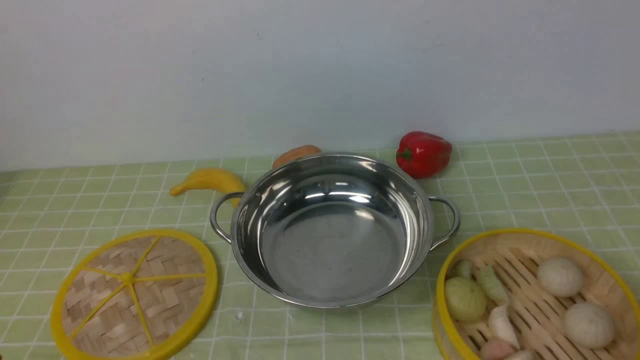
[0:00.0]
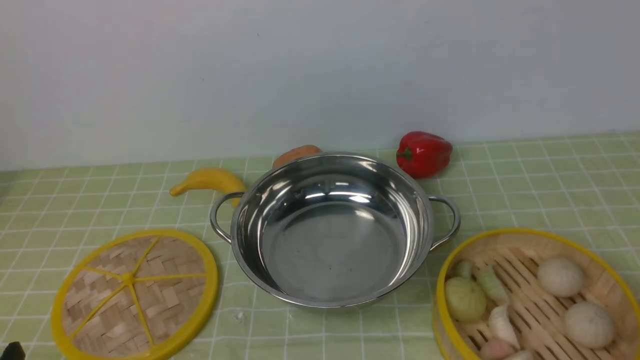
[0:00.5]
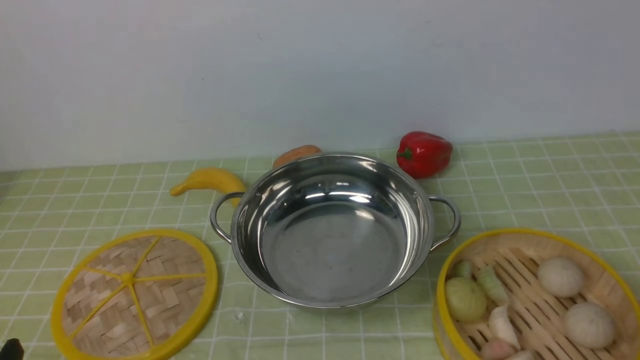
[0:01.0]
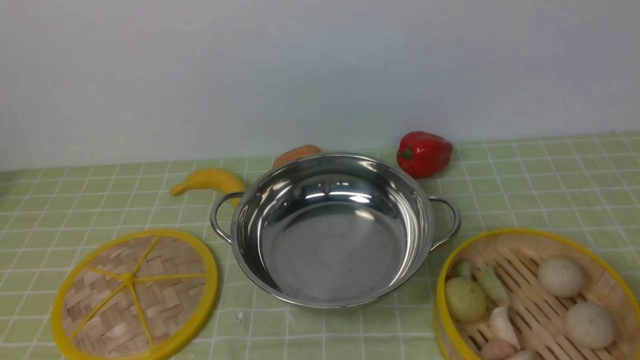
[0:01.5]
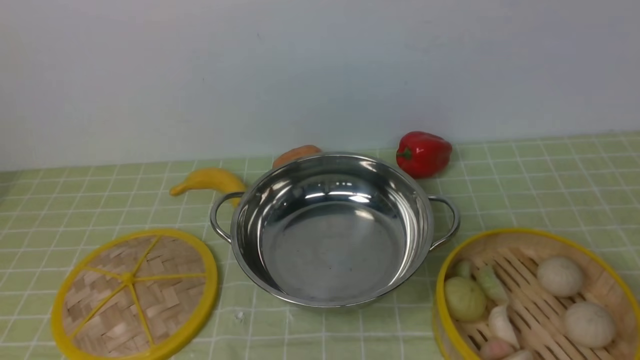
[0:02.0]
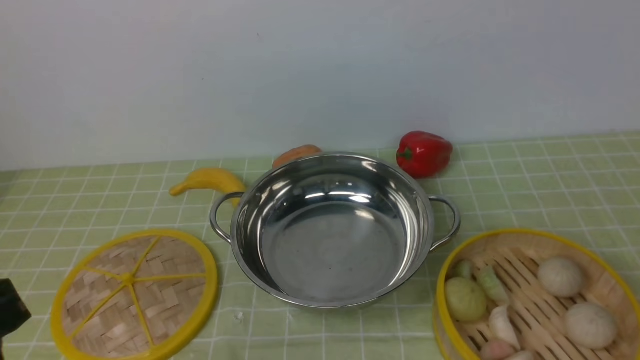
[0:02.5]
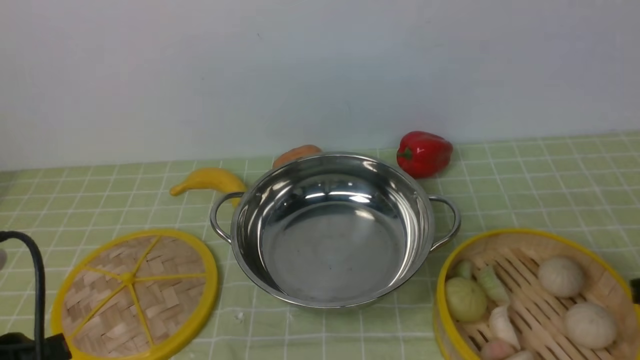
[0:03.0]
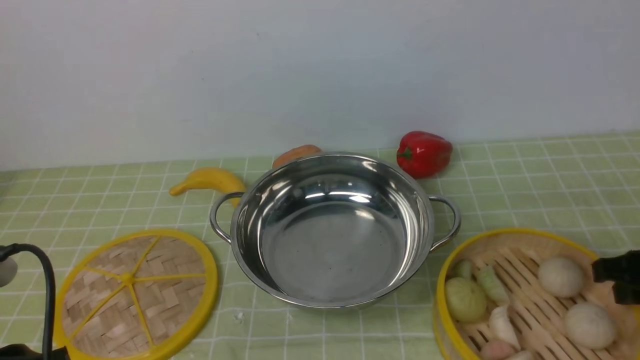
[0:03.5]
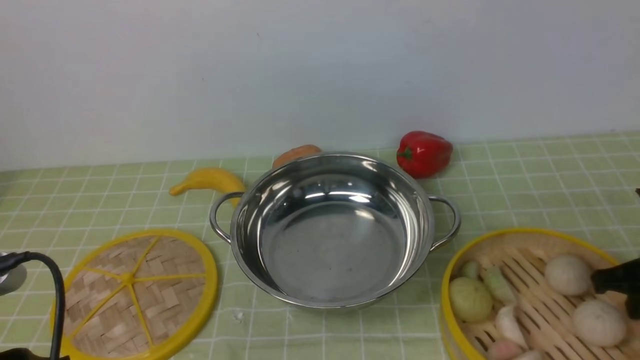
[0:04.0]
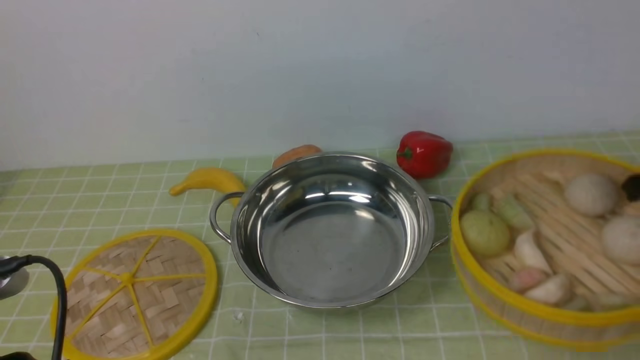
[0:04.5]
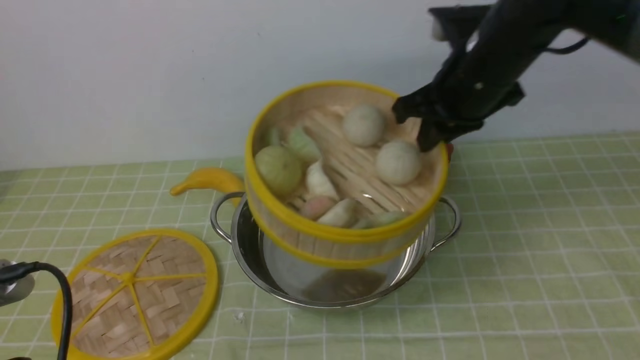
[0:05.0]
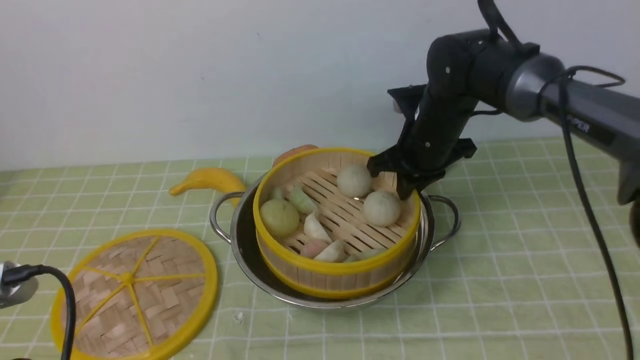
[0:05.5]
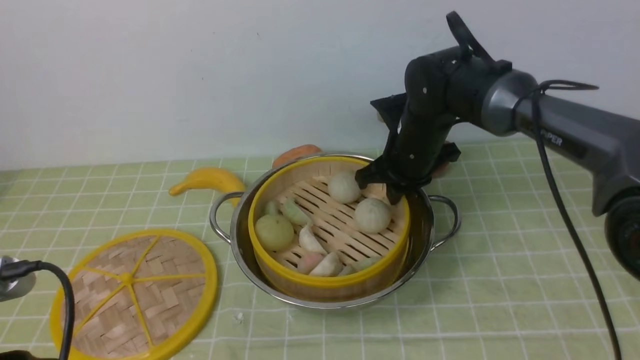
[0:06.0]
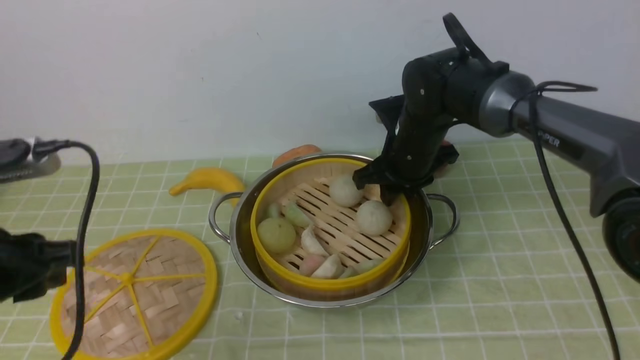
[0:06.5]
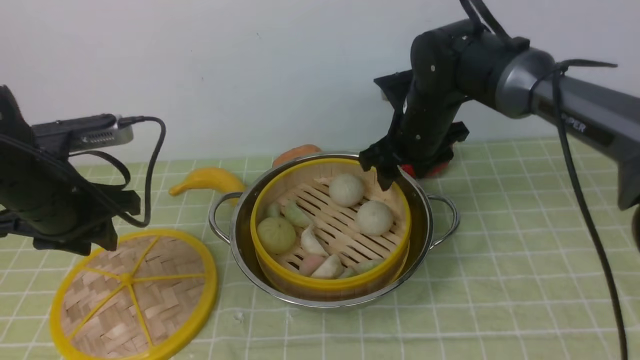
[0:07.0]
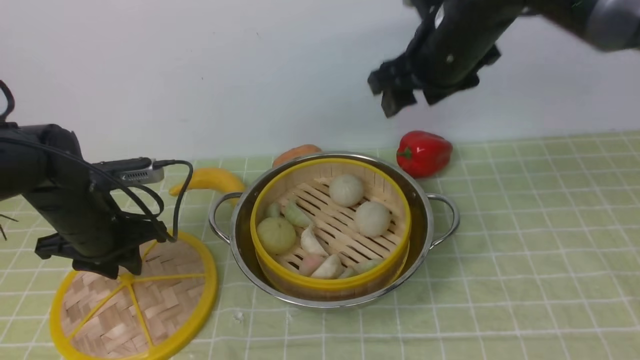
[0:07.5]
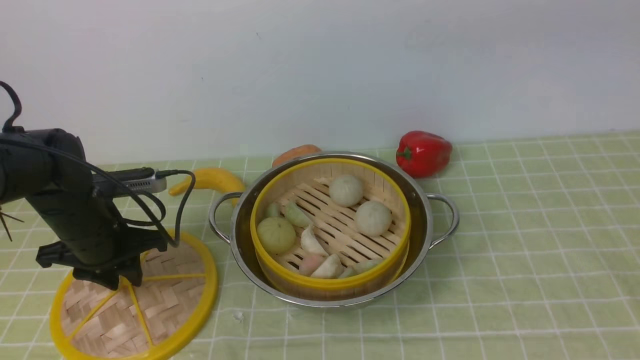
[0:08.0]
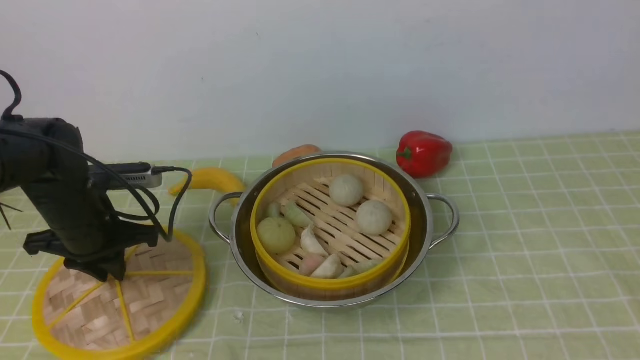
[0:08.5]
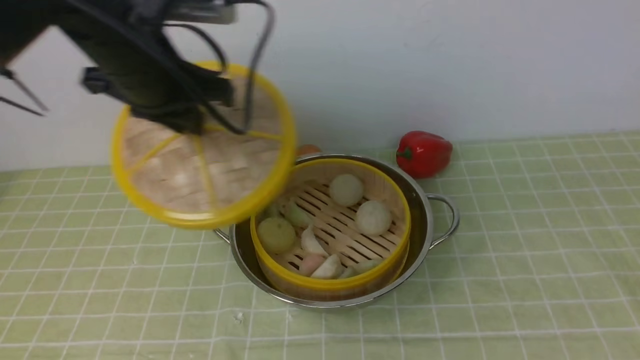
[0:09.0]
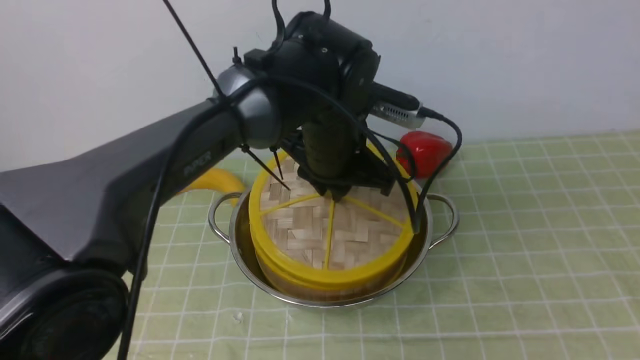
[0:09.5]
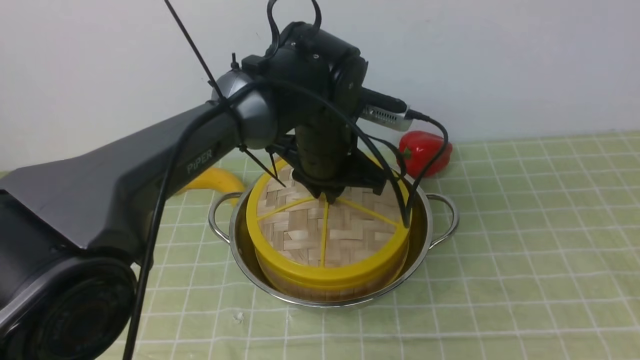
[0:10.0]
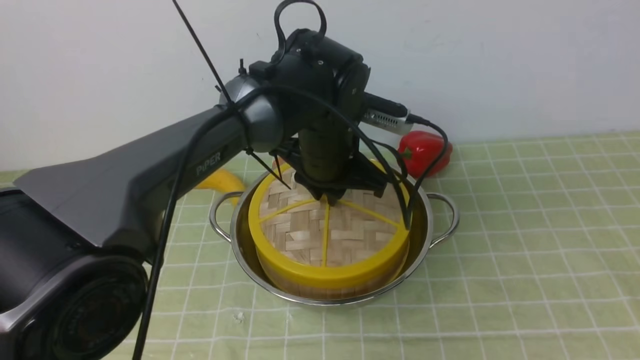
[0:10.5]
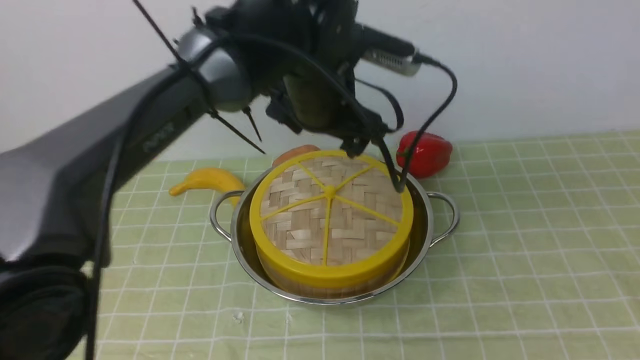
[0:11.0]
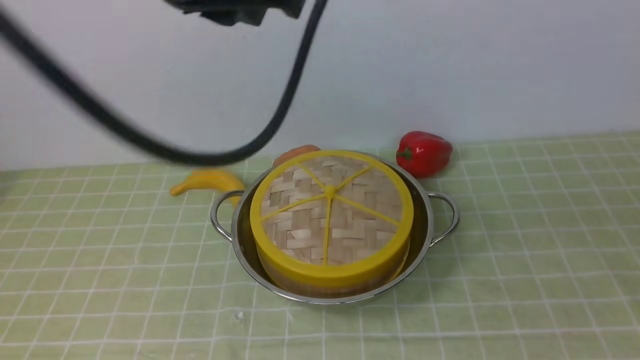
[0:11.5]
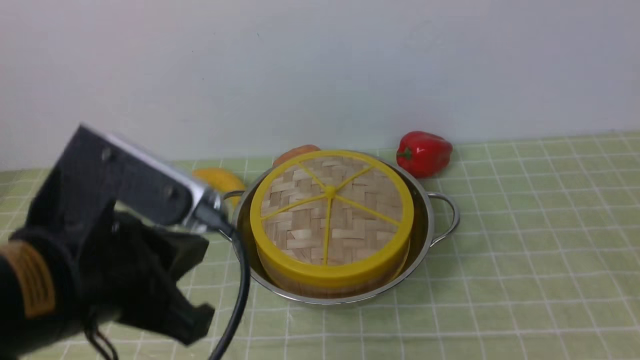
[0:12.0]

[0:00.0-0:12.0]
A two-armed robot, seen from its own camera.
Task of the whole recording: place the steamer in the pot on the green tablecloth, and put the lid on the steamer.
Step, 0:00.0 to 0:04.5: use the right arm to lift the steamer closest to it.
Step, 0:05.0 to 0:07.5: use the right arm to put the steamer into the iron steamer pot in the middle.
Step, 0:08.0 to 0:08.5: use the left arm to lift the lid of the steamer.
Step, 0:09.0 to 0:11.0: use the left arm to place the steamer lid on the steamer.
0:02.0 to 0:04.0: The right gripper is displaced forward and downward by approximately 25 cm, and closes its fingers. Meanwhile the left gripper goes about 10 cm downward and forward.
0:04.0 to 0:06.0: The right gripper moves to the left and forward, some 30 cm.
0:06.0 to 0:08.0: The right gripper travels upward and backward by approximately 40 cm, and opens up, while the left gripper goes about 25 cm forward.
0:08.0 to 0:10.0: The left gripper shifts approximately 25 cm to the right; the right gripper goes some 20 cm backward and to the right.
0:10.0 to 0:12.0: The left gripper shifts about 30 cm backward and to the left, and opens and closes again. Meanwhile the right gripper shifts approximately 15 cm downward and forward, and closes up.

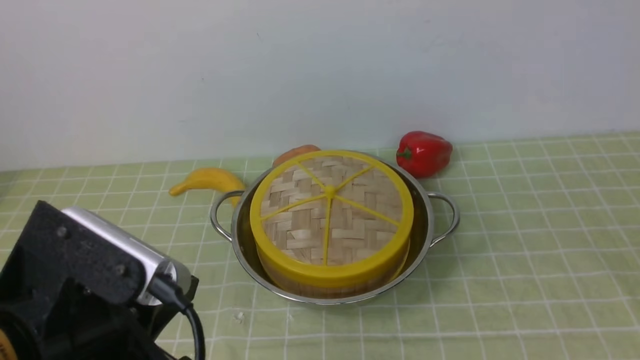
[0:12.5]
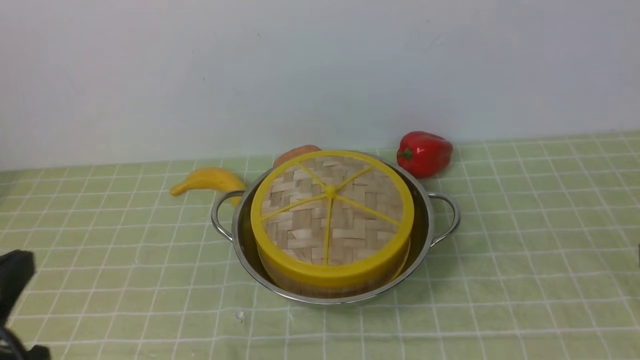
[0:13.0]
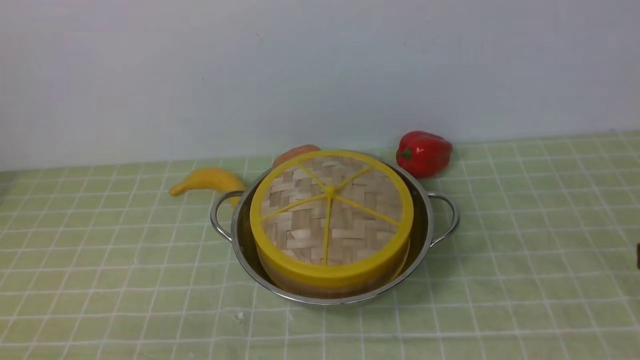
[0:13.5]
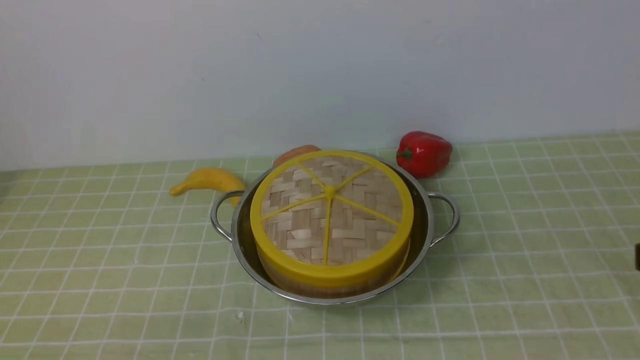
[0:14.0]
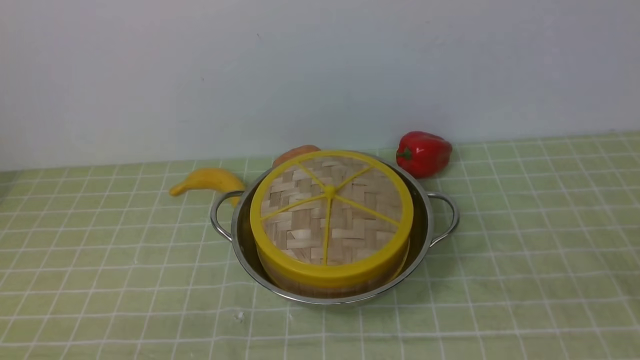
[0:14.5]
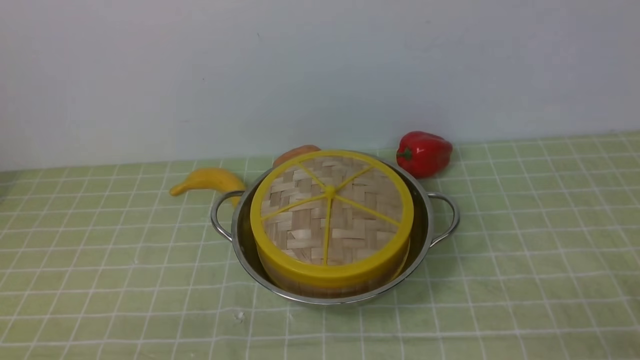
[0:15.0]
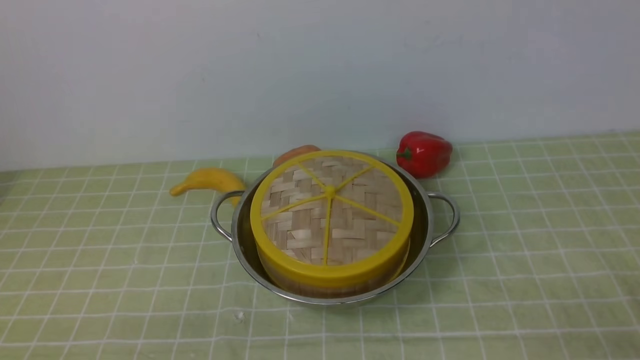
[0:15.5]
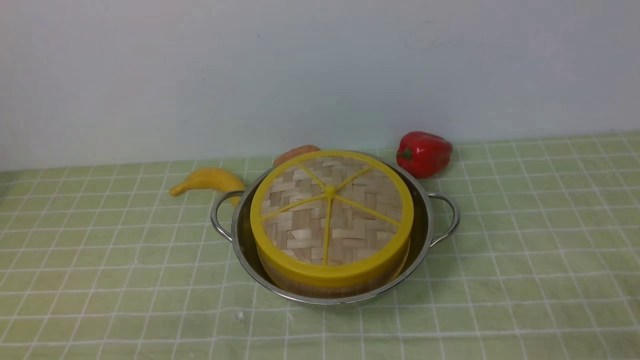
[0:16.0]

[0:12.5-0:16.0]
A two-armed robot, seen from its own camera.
Task of the whole recording: place the steamer in the pot on the green tablecloth, and put the lid on the steamer.
0:12.5 to 0:14.5: The left gripper travels downward, to the left and backward by some 15 cm.
